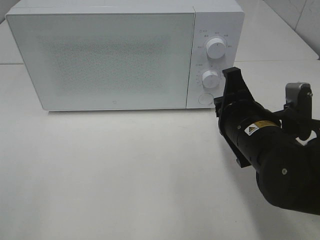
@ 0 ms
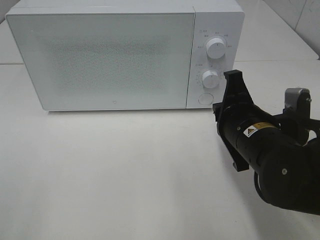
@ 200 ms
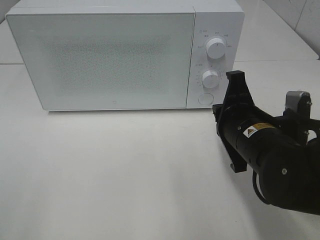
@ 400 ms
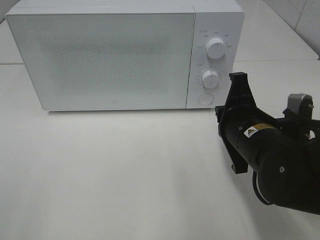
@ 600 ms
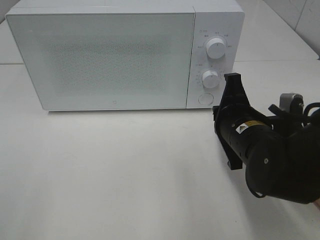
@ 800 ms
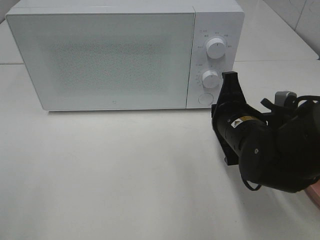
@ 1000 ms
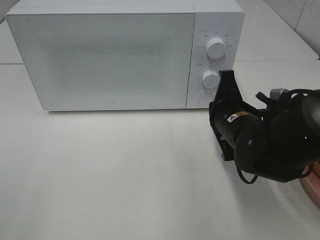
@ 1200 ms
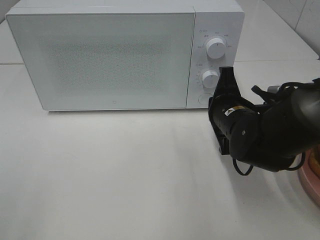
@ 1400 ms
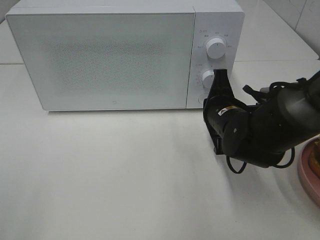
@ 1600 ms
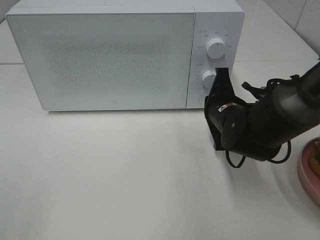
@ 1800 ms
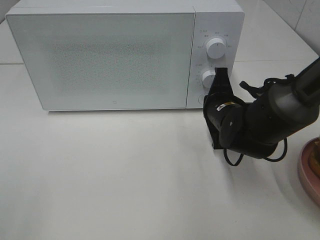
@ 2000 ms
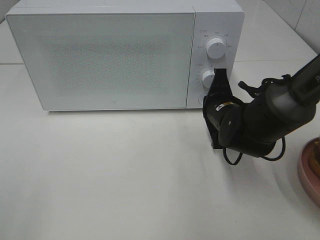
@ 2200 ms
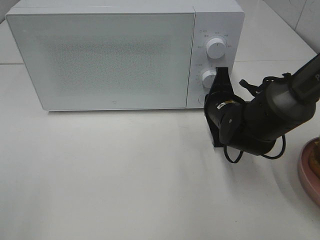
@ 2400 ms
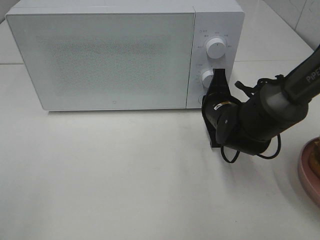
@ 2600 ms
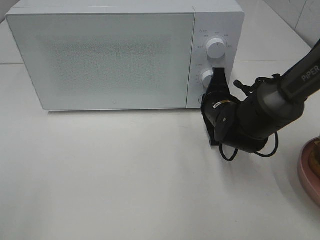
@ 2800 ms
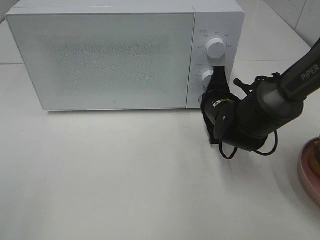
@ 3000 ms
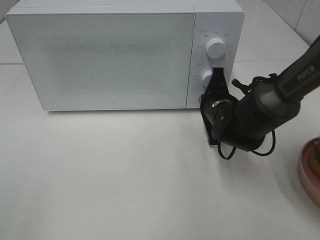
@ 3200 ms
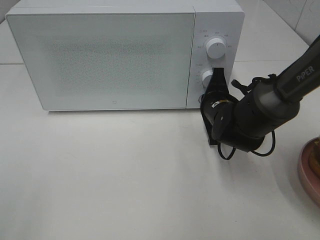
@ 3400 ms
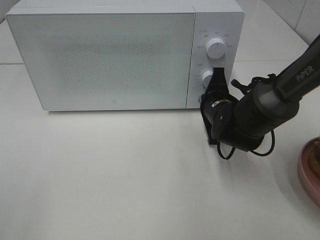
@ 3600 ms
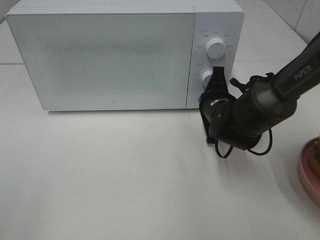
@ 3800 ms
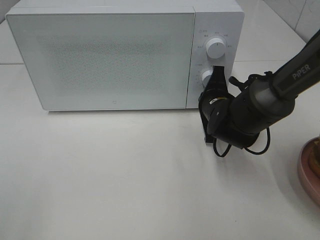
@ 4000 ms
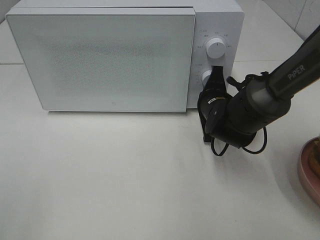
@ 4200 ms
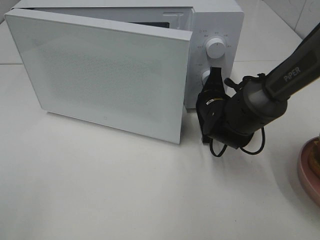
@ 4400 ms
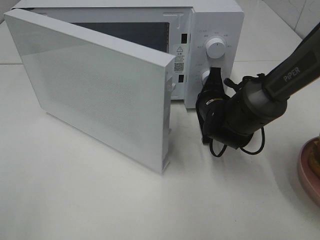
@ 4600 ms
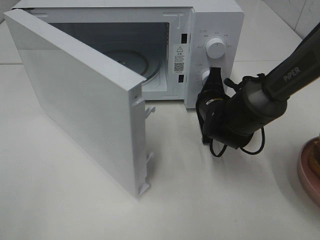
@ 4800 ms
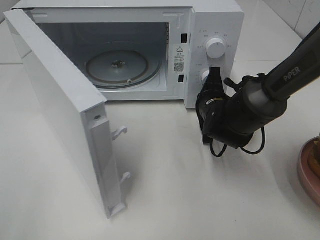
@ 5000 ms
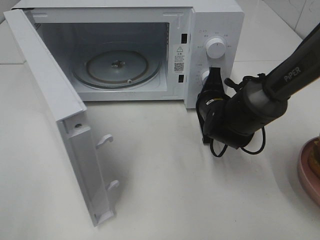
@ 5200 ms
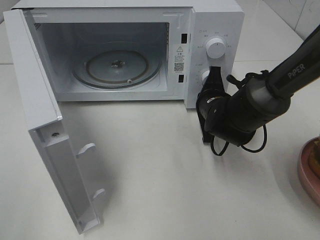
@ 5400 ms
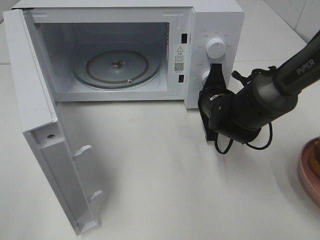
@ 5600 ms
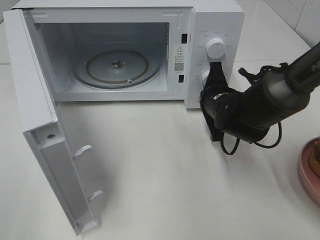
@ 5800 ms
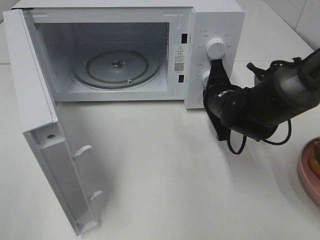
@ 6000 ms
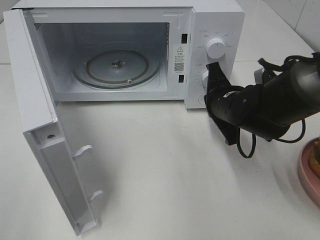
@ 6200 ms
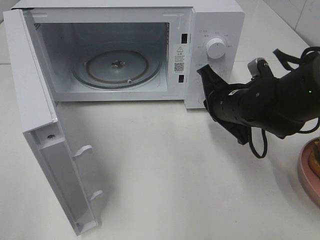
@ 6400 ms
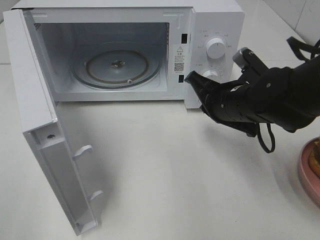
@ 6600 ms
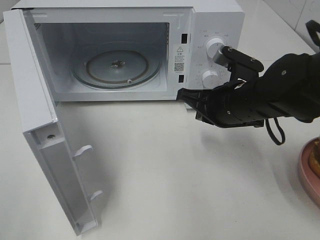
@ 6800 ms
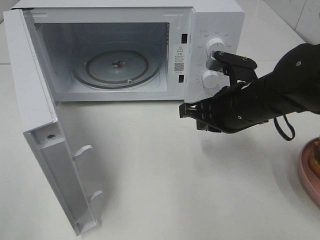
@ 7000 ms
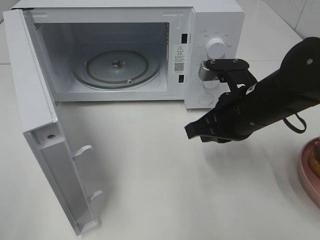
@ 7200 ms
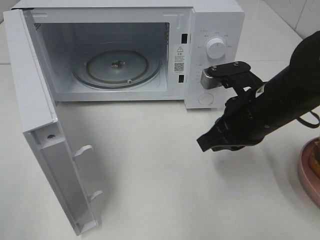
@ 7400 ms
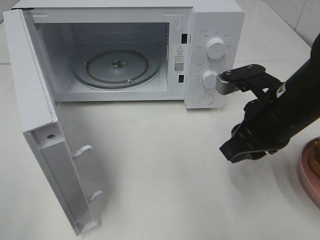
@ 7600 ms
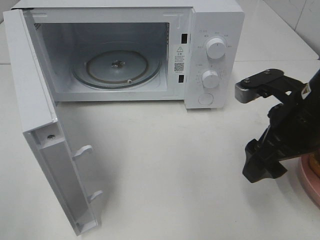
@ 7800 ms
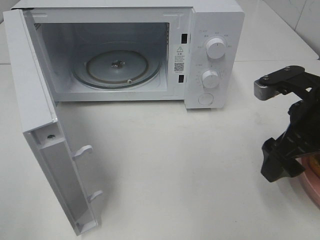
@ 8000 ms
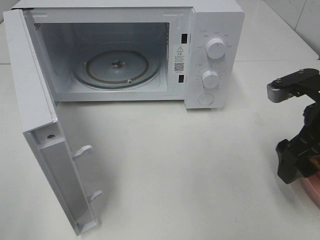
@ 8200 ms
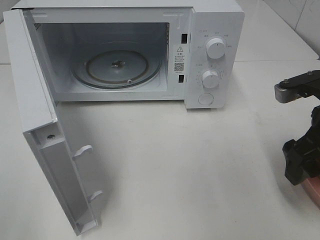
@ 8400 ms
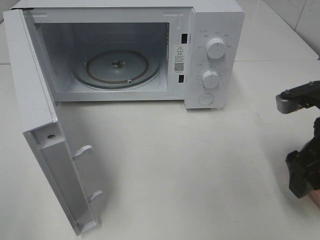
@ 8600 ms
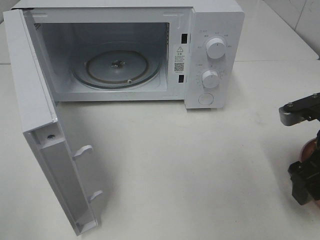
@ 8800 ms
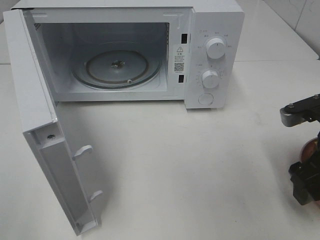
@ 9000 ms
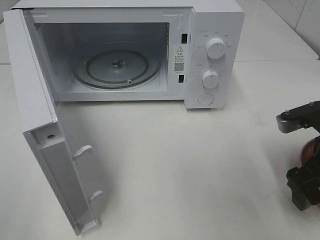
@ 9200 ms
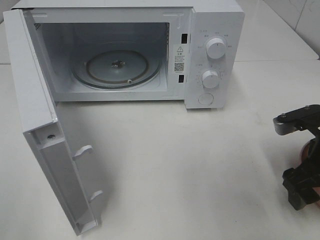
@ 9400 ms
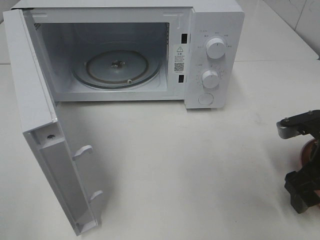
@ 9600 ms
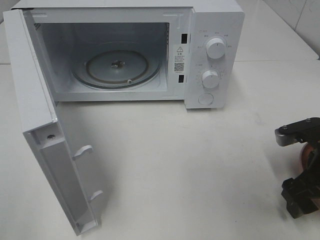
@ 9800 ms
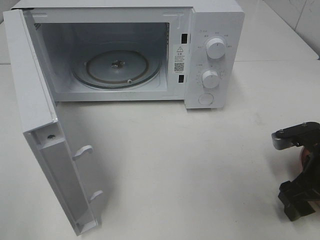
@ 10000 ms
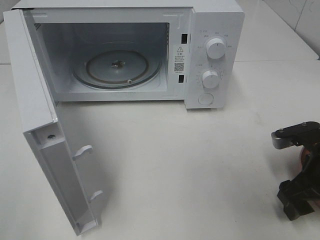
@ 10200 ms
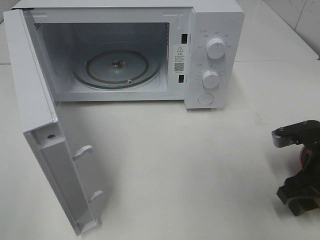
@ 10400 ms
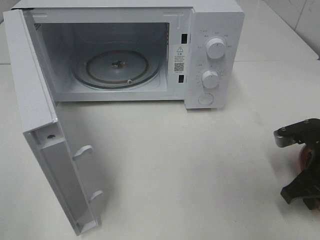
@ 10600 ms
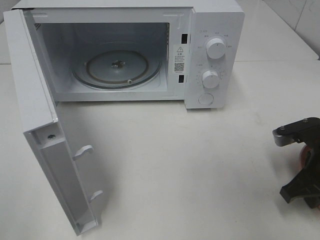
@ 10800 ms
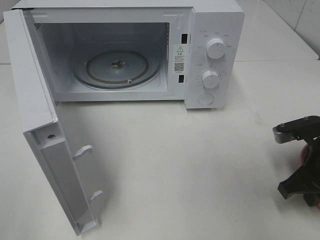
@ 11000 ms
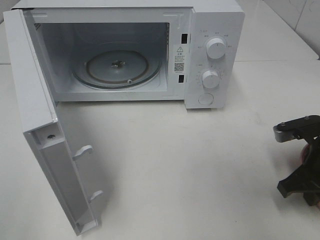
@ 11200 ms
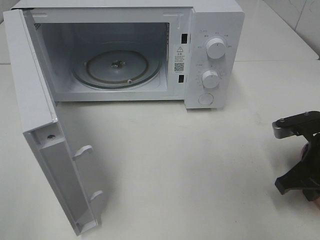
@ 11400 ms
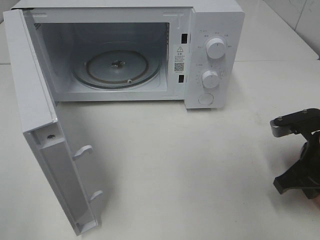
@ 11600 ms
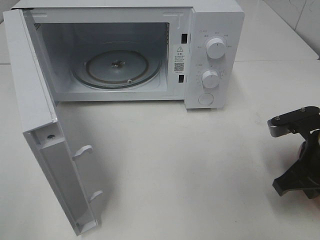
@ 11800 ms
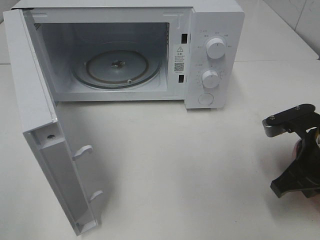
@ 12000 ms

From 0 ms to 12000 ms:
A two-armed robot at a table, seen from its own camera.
Task of the whole recording: Heat the burger.
Step, from 0 ms to 6000 ms: Right hand: press the switch.
Step, from 6200 ms to 11400 ms: Right hand: grab the plate with the hamburger.
From 0 ms to 1600 ms: The right gripper moves forward, roughly 10 cm.
From 1600 ms to 3000 ms: The grippers move only a little.
From 3000 ms to 4400 ms: The grippers stay close to where they were, moving slightly.
From 6000 ms to 7600 ms: The right gripper moves backward and upward, roughly 10 cm, and opens up.
From 7600 ms to 9000 ms: The right gripper travels to the right by approximately 10 cm, and opens.
From 9000 ms to 10400 ms: The right gripper goes about 5 cm downward.
From 10400 ms to 12000 ms: The right gripper closes.

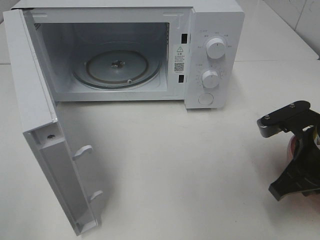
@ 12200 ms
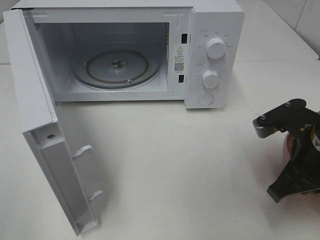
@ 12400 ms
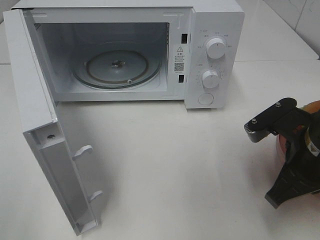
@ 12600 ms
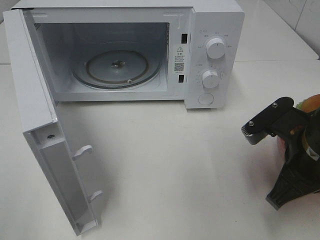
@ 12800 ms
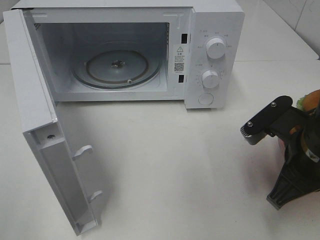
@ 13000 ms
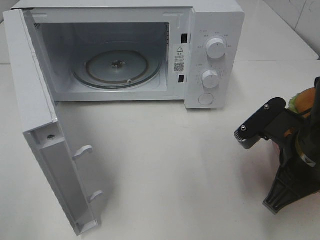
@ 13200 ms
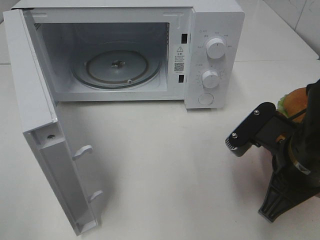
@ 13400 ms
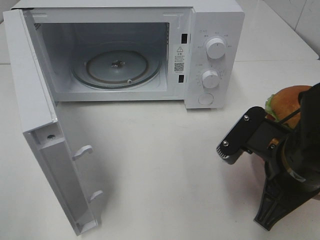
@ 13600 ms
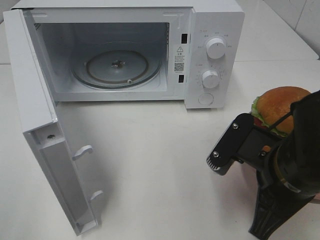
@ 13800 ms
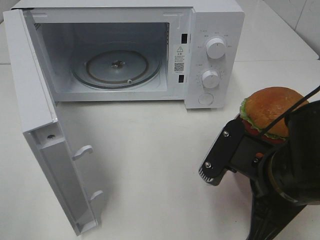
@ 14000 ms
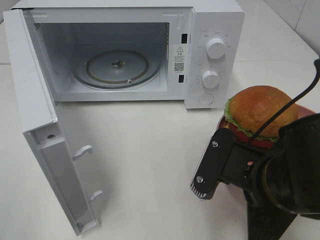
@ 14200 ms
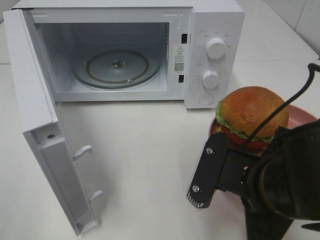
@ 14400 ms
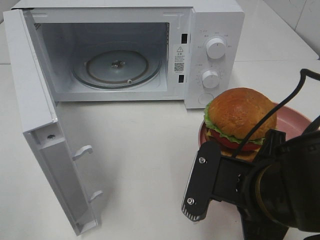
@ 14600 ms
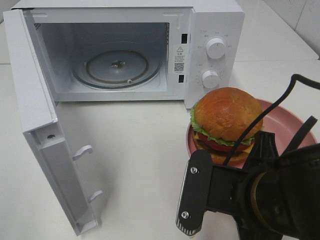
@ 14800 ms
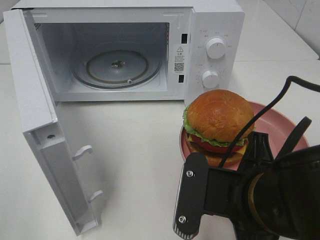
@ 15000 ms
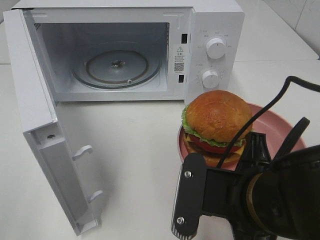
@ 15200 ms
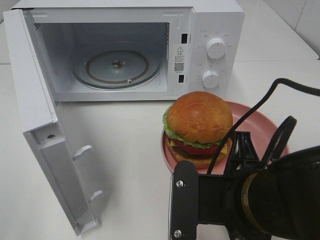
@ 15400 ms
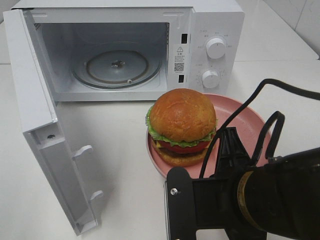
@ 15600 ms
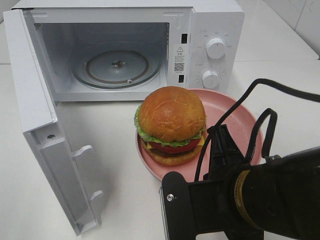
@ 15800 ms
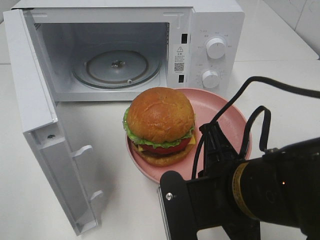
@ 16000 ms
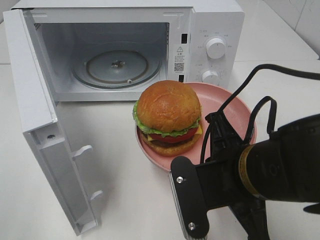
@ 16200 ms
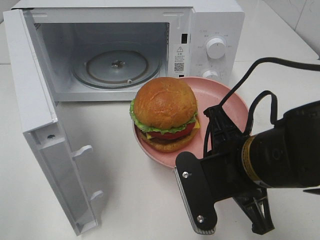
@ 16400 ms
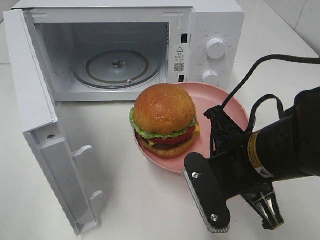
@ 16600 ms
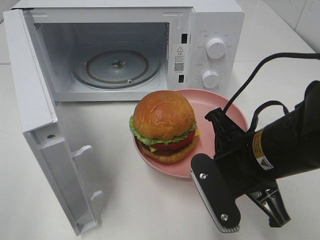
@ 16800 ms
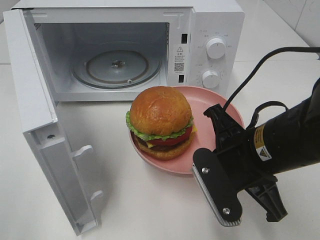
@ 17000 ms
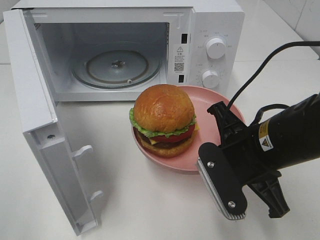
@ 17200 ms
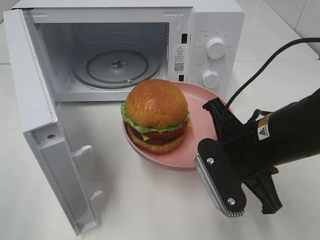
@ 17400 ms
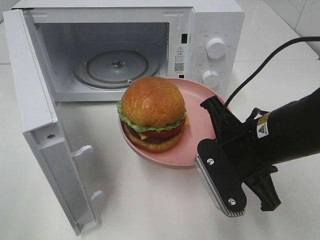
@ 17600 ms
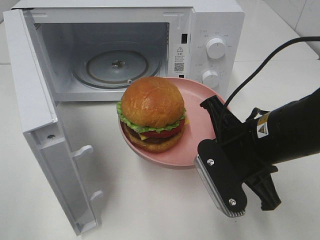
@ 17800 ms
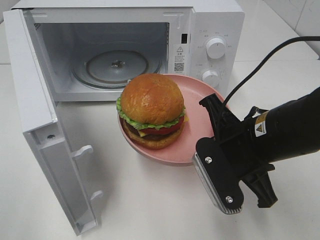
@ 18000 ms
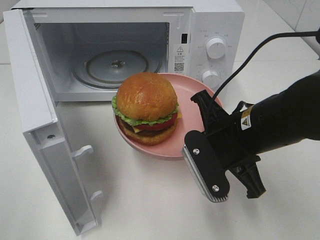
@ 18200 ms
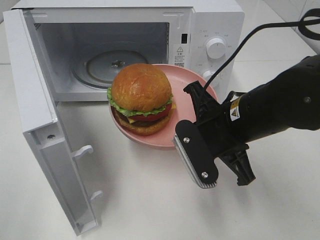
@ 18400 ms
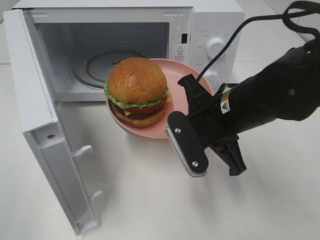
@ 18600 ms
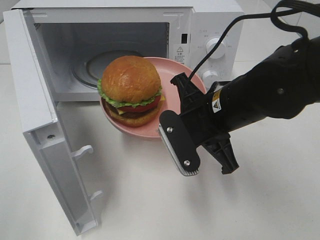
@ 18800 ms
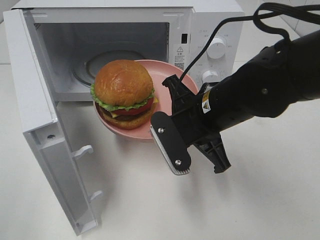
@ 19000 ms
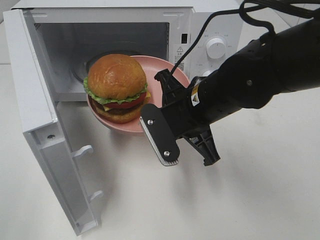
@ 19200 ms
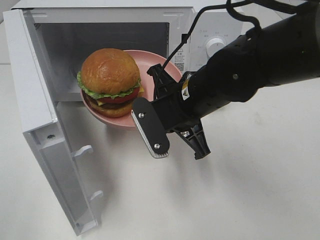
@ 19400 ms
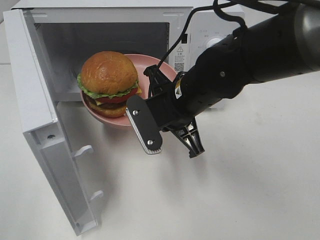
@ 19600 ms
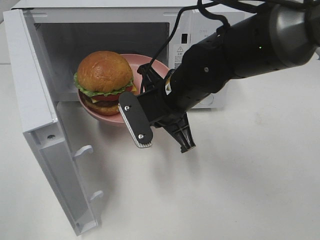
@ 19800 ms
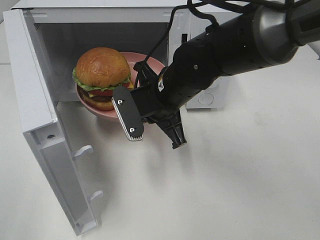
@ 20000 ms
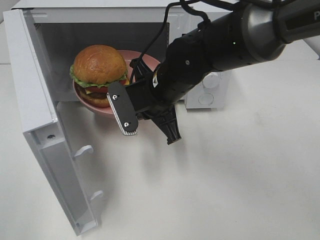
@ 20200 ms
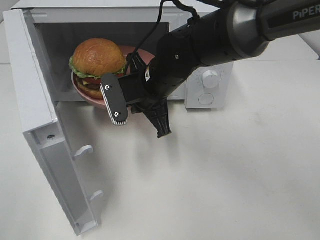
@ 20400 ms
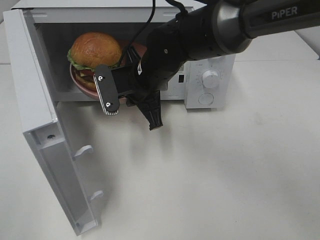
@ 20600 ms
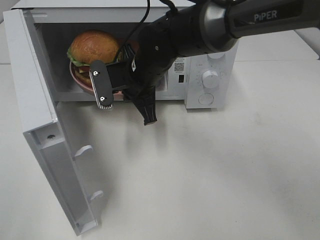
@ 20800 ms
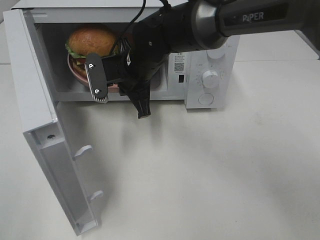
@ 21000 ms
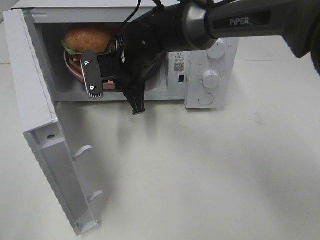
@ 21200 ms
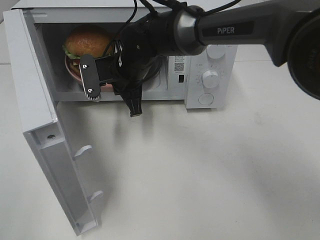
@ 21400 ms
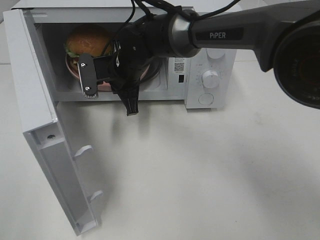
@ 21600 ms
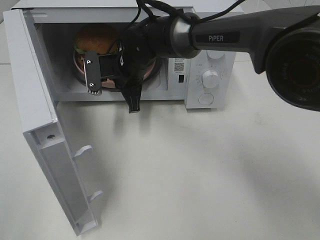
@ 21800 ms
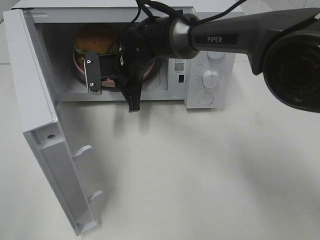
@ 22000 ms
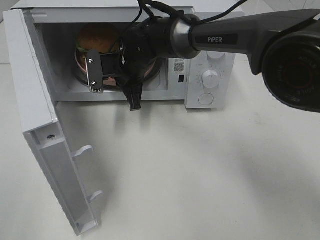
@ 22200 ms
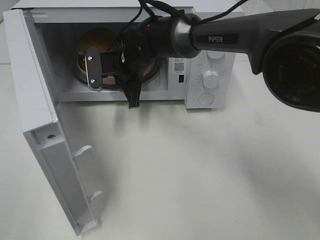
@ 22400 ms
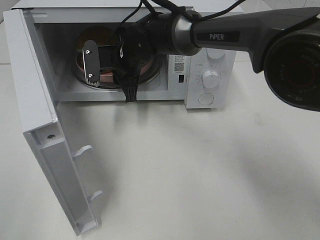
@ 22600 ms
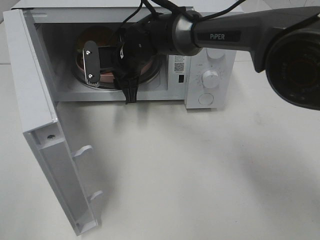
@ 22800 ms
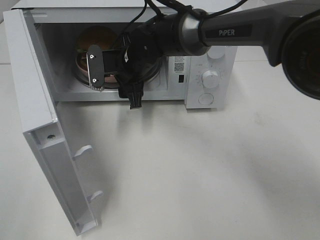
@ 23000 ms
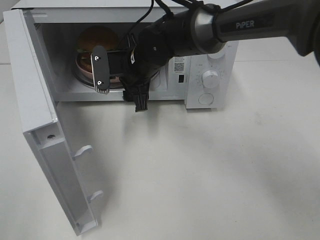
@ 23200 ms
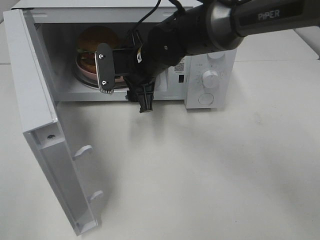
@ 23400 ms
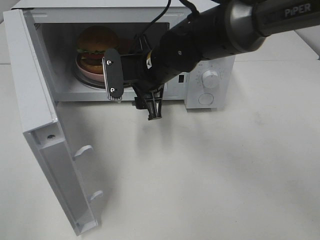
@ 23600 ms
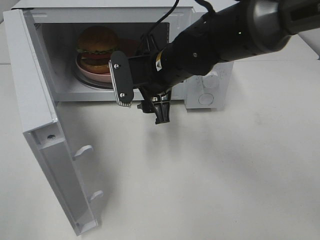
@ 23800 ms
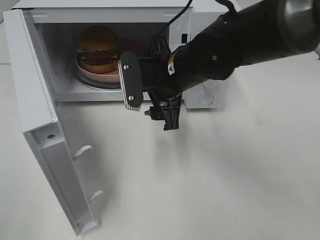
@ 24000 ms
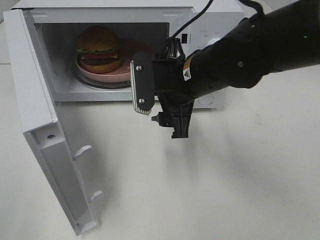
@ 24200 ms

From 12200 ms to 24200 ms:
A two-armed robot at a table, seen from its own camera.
Task of the whole recording: Heat the burger.
Step, from 12200 ms to 22600 ms: Right hand: place the plate in the microwave.
From 12200 ms to 13800 ms: The right gripper heads to the left and backward, covering some 10 cm.
From 13800 ms to 15200 ms: The right gripper shifts by roughly 5 cm.
From 15200 ms to 16600 ms: The right gripper travels forward by about 5 cm.
From 18200 ms to 19800 ms: The right gripper travels to the left and forward by about 10 cm.
From 19800 ms to 21200 ms: The right gripper shifts some 10 cm forward and to the left.
From 21200 ms to 22600 ms: The right gripper opens up.
From 22600 ms to 24200 ms: The right gripper shifts about 15 cm backward and to the right, and opens up.
